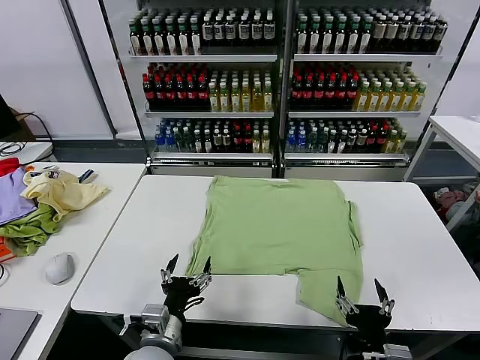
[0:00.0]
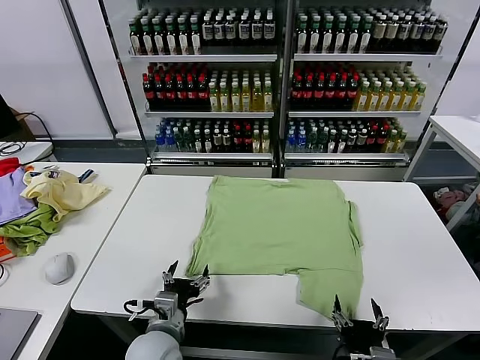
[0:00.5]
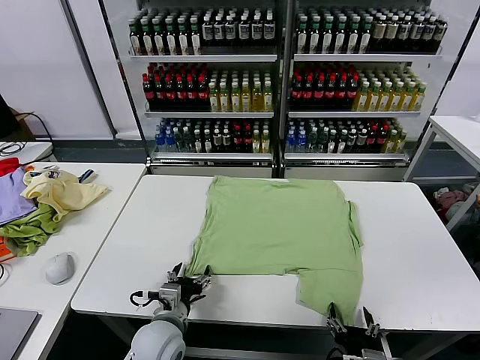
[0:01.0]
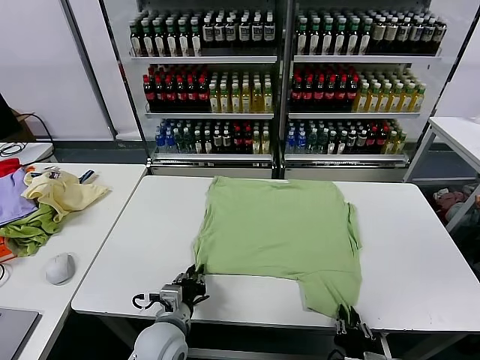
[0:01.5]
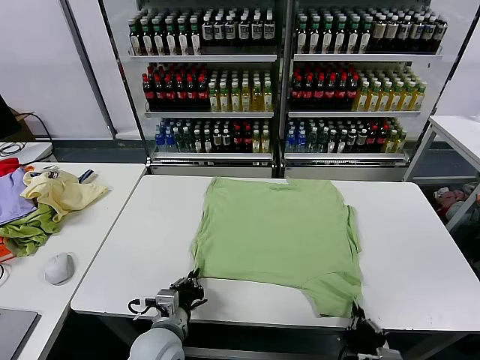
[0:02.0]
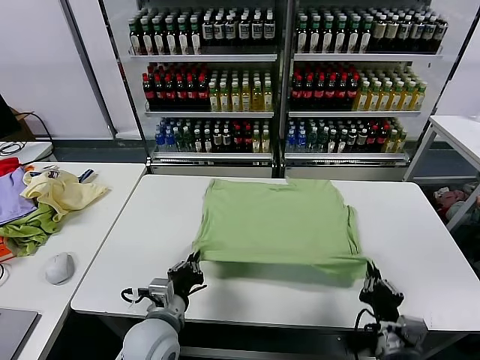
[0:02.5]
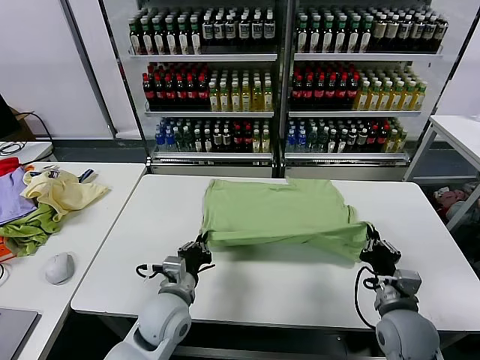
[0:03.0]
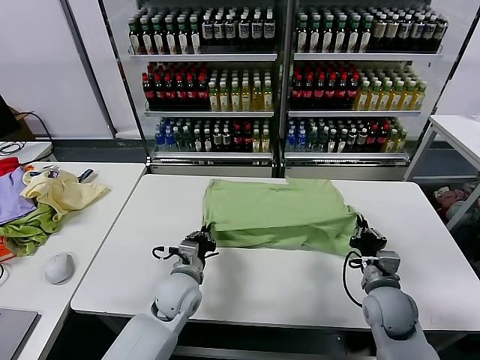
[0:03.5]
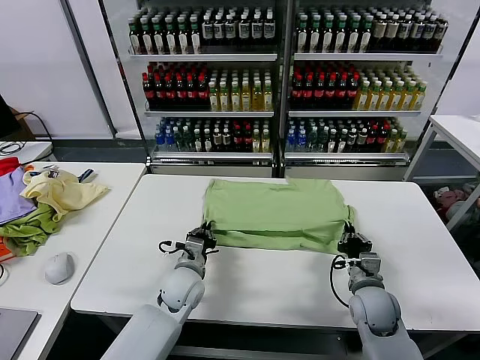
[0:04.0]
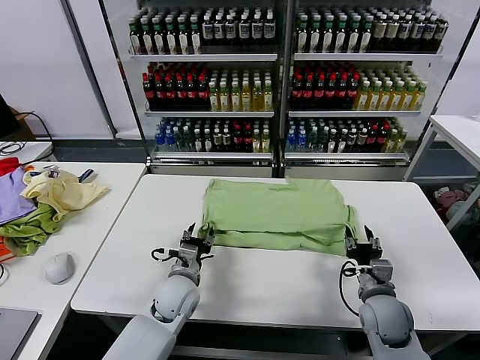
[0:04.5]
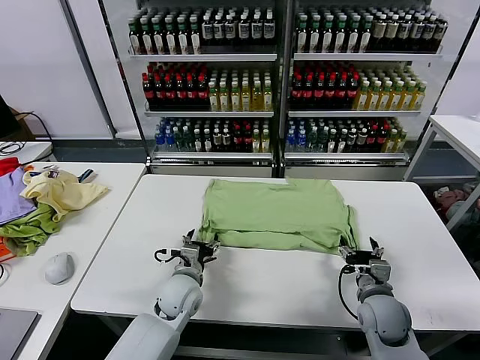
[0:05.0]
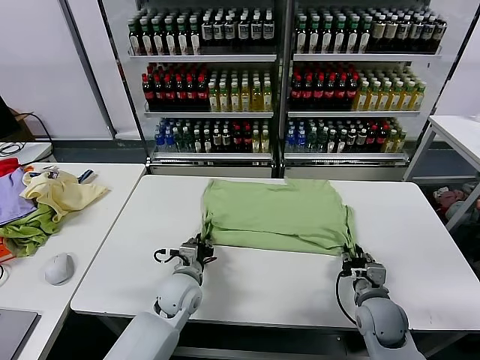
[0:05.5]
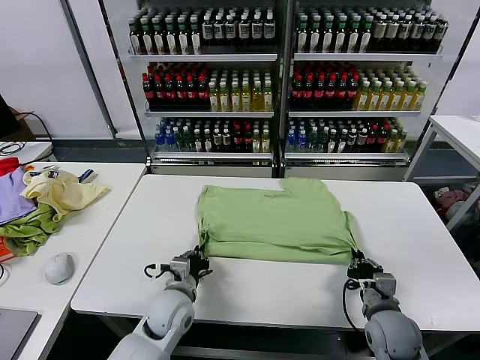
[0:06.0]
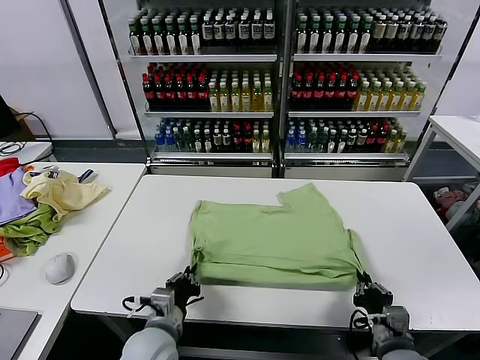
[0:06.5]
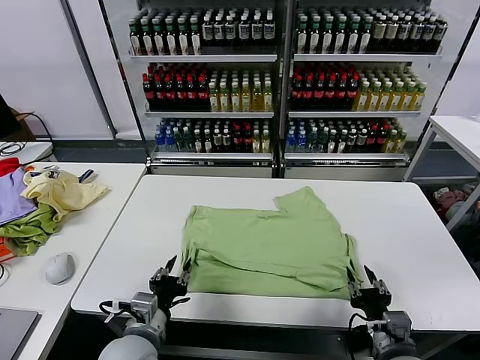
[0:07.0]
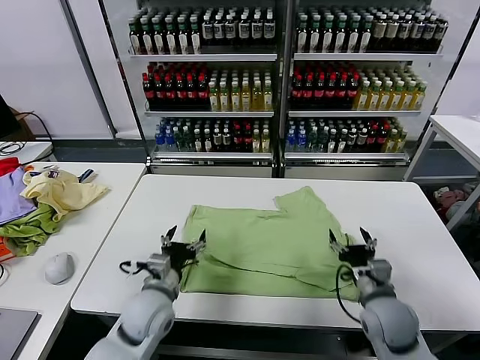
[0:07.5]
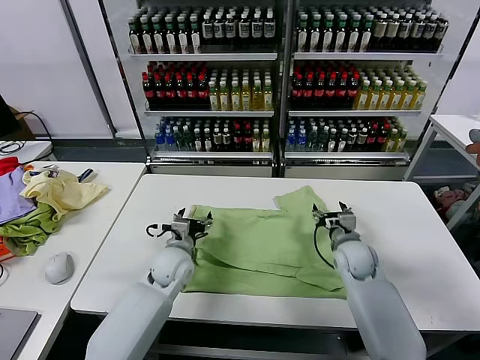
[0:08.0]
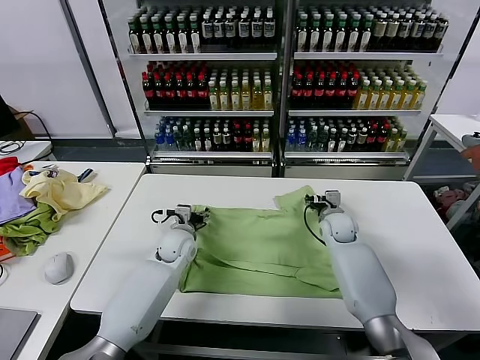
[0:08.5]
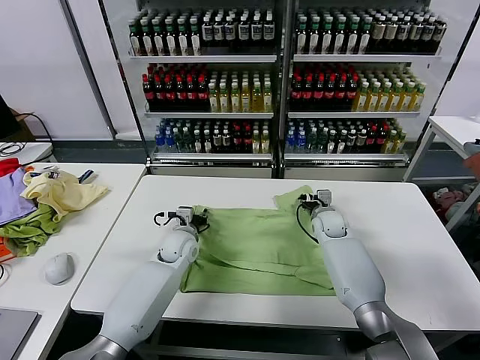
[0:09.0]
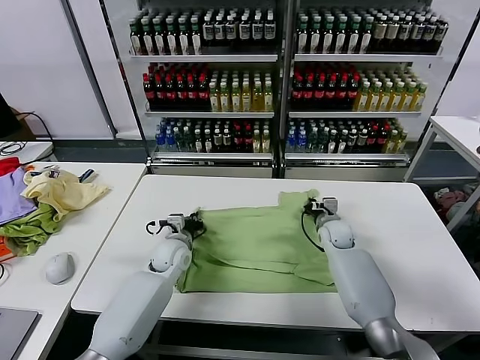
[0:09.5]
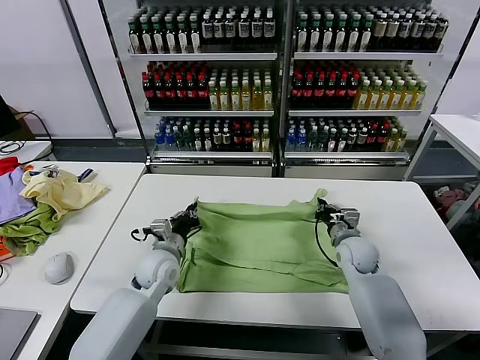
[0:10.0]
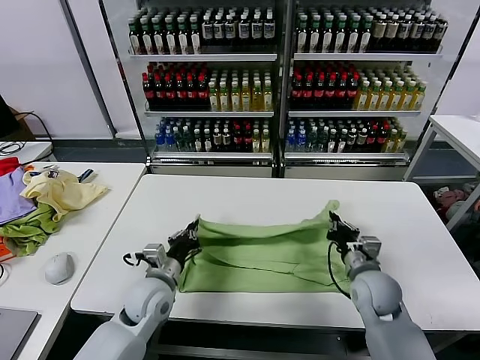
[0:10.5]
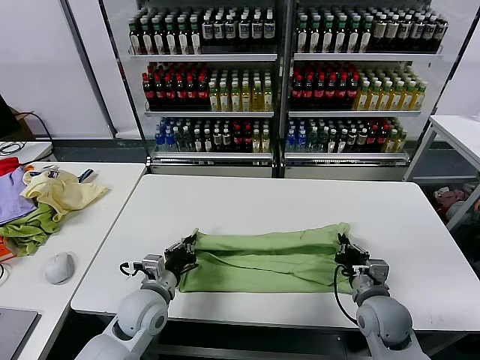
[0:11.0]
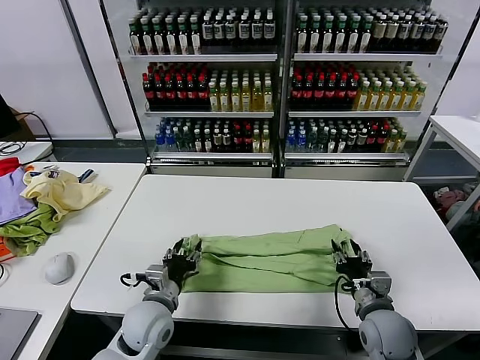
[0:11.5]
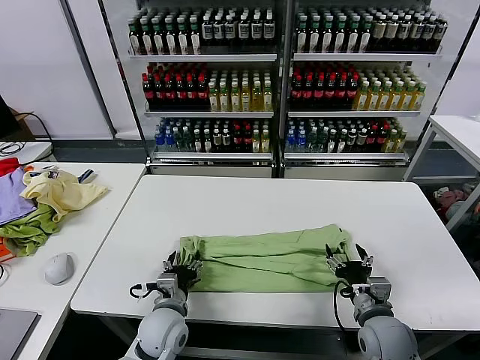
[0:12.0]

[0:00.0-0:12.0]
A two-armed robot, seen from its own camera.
Task of the whole recording: fold and organize the clothes.
Step, 0:00.0 to 0:01.5: use both grippers simultaneously to clamp the lower edge of the clothing fabric.
Step, 0:02.0 to 0:04.0: use both grippers to drag the lower edge of the fabric forward and fold it over the upper edge.
Step, 0:05.0 to 0:06.5: Drag the clothes downward with both gripper.
Step, 0:07.0 to 0:09.0: use both grippers simultaneously to clamp the upper edge of the clothing fabric.
Step, 0:09.5 to 0:11.0: use both grippers to drag the upper edge of the fabric backward and fold it over the lower edge.
0:02.0 to 0:04.0: Both grippers move forward, some 15 cm.
0:04.0 to 0:06.0: The two grippers go some 5 cm backward. The left gripper opens and closes again. The right gripper opens, then closes once more.
0:06.0 to 0:08.0: The right gripper moves forward, about 20 cm, and opens; the left gripper heads forward, covering about 10 cm, and opens up.
0:08.0 to 0:10.0: The right gripper moves roughly 10 cm forward and comes back, and closes. Meanwhile the left gripper travels forward and back again, roughly 5 cm each way, and closes its fingers.
0:10.0 to 0:12.0: The left gripper shifts some 10 cm backward, and opens. The right gripper shifts about 20 cm backward, and opens its fingers.

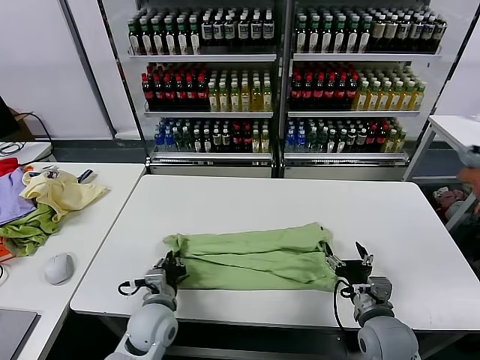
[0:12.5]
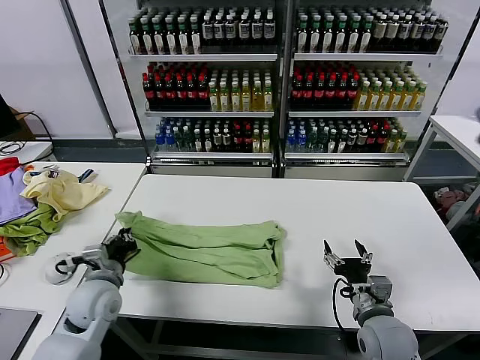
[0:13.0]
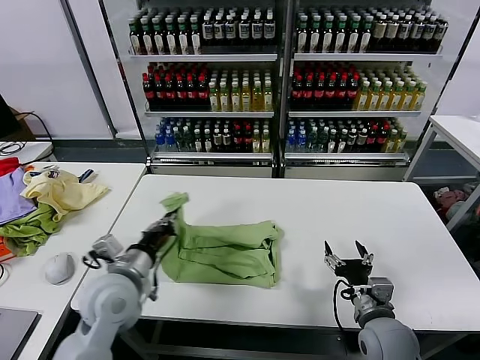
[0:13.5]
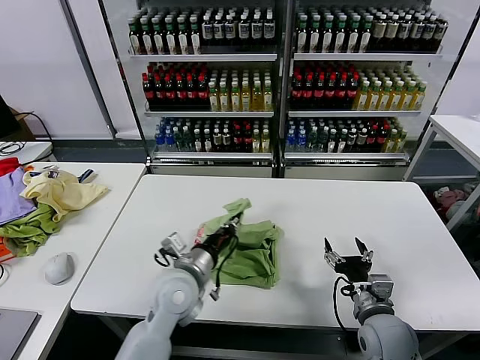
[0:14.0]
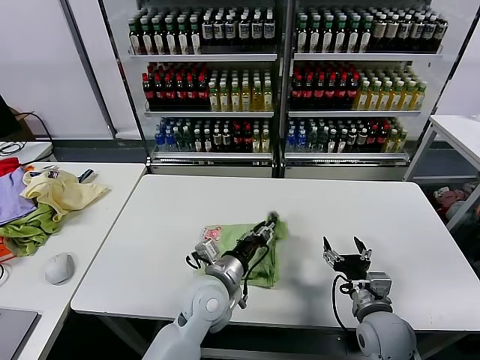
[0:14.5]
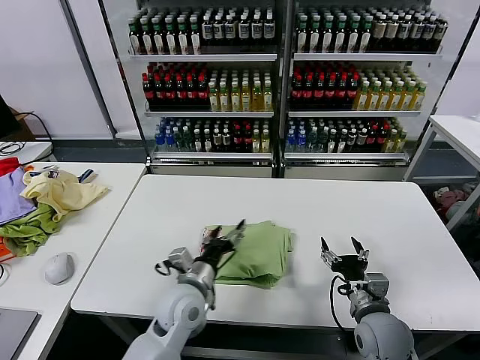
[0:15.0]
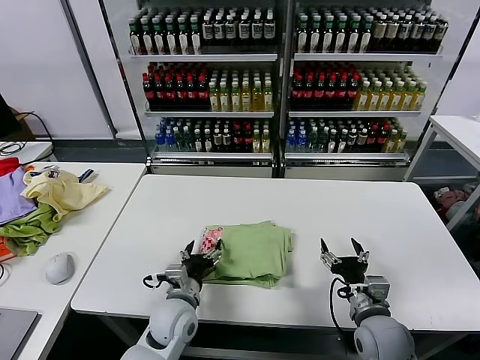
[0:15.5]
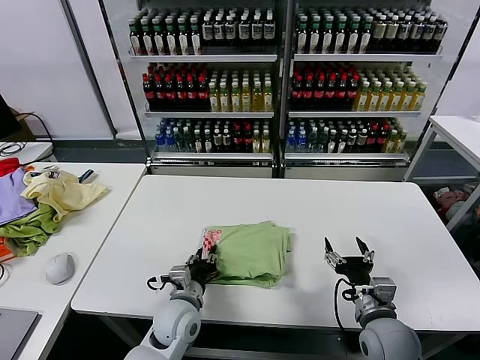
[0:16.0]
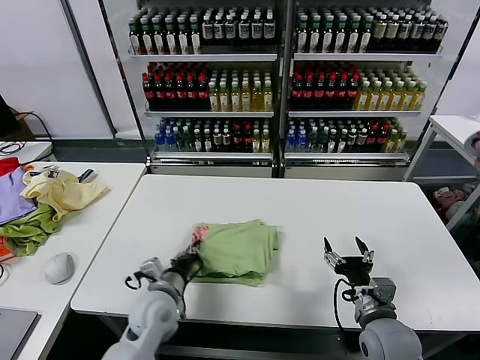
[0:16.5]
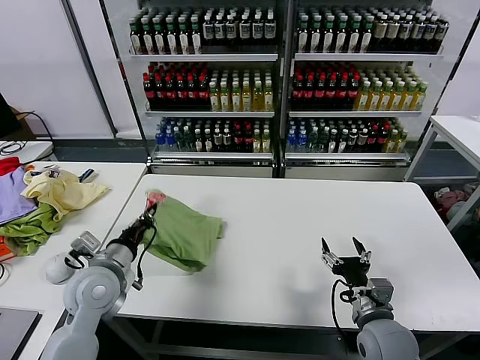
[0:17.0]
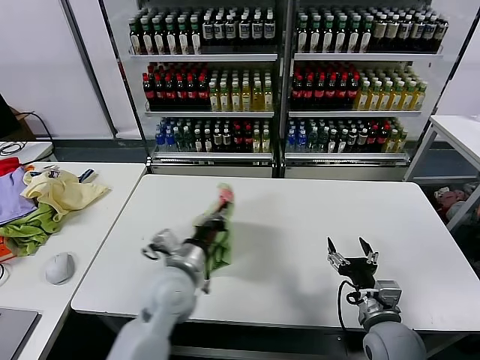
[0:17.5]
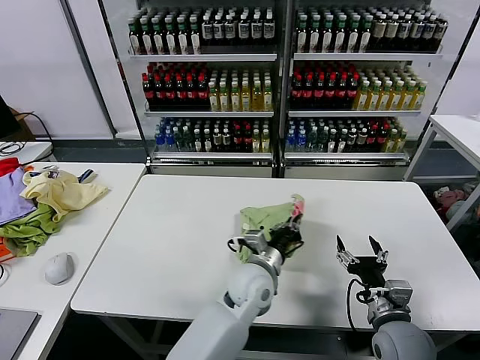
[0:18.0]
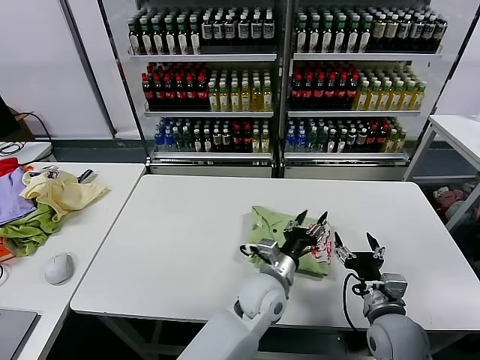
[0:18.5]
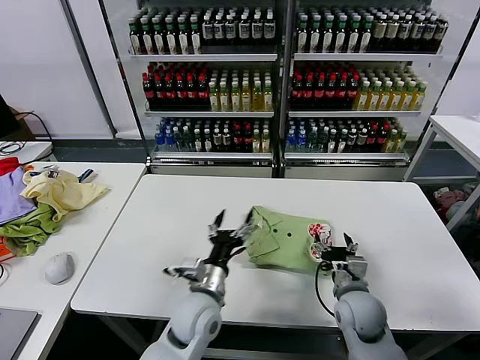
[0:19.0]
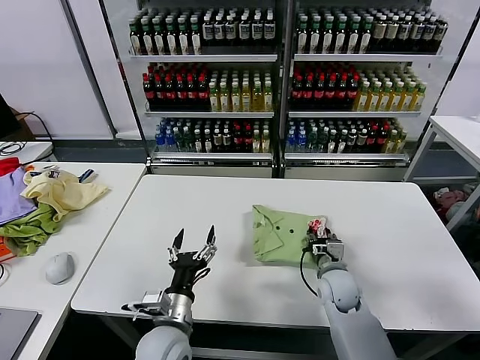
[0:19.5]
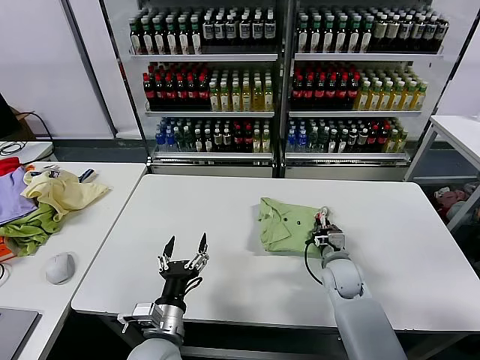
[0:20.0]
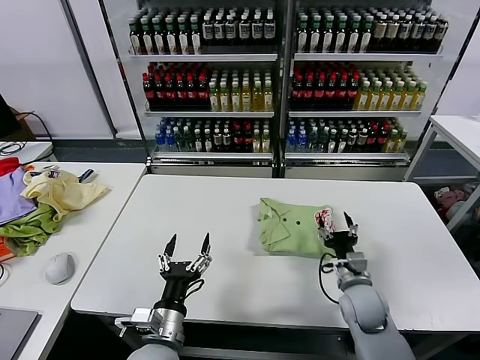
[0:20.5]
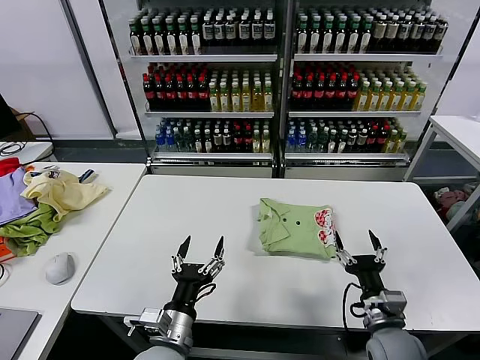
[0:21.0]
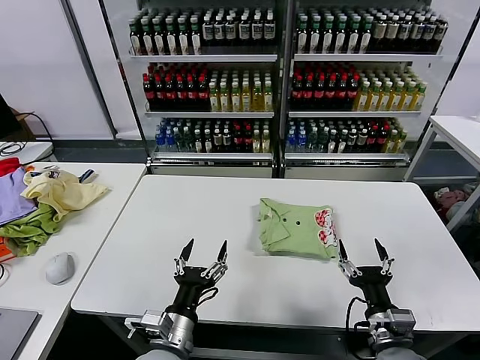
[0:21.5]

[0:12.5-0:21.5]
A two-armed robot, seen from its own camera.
Task of the whole recording: fold and organize the clothes.
Step, 0:13.0 to 0:14.5: use the left gripper to drag the left edge of the fabric to the left and folds it over the right edge.
Step, 0:15.0 to 0:18.0: Flip the folded clothes over with left gripper.
Step, 0:18.5 to 0:20.0: Drag the clothes to the center of the table.
0:12.5 to 0:14.5: The left gripper heads to the right and upward, covering about 15 cm.
0:14.5 to 0:17.0: The left gripper moves to the left, some 20 cm, and closes up.
0:17.0 to 0:19.5: The right gripper goes about 15 cm forward and downward, and closes its fingers, while the left gripper moves to the right, backward and downward, approximately 20 cm, and opens up.
0:19.5 to 0:21.5: The right gripper travels backward by some 20 cm, and opens its fingers; the left gripper travels backward by about 5 cm.

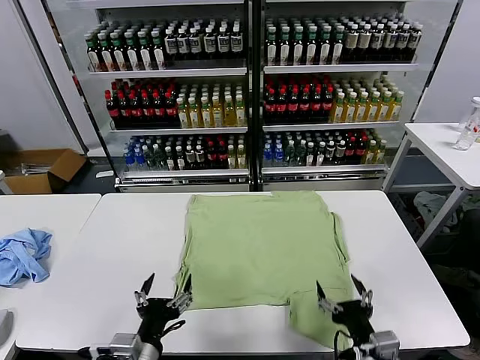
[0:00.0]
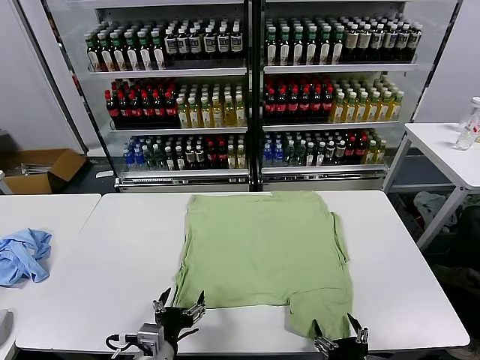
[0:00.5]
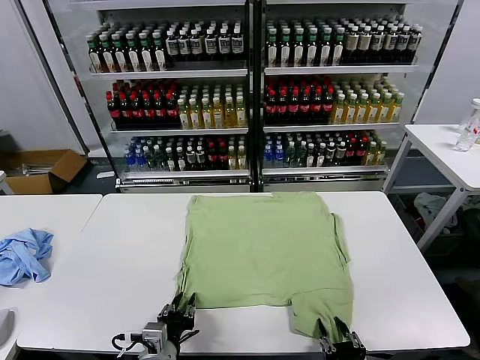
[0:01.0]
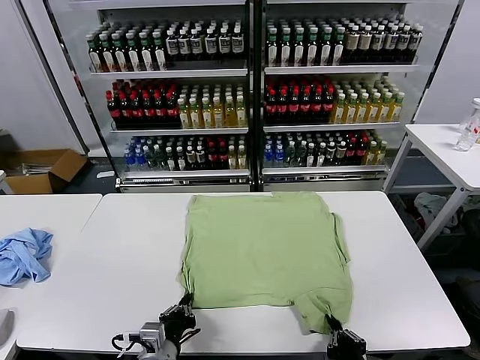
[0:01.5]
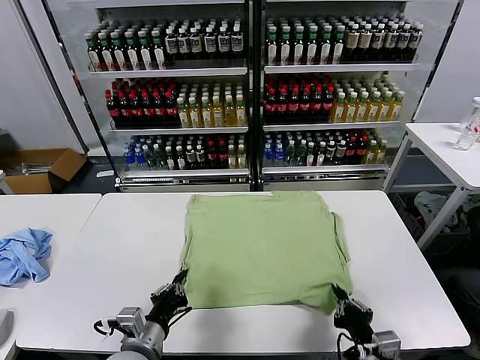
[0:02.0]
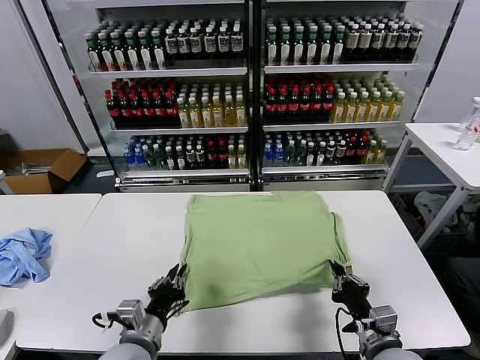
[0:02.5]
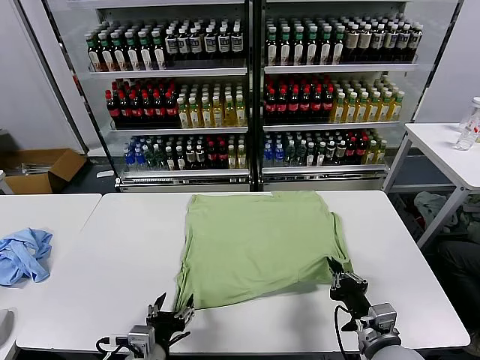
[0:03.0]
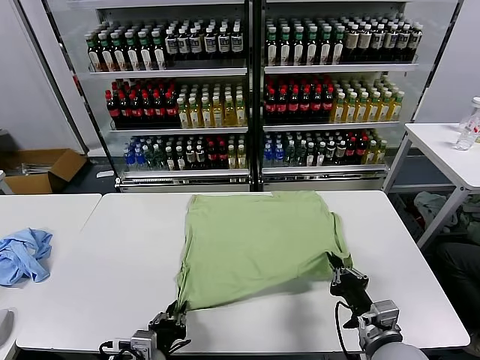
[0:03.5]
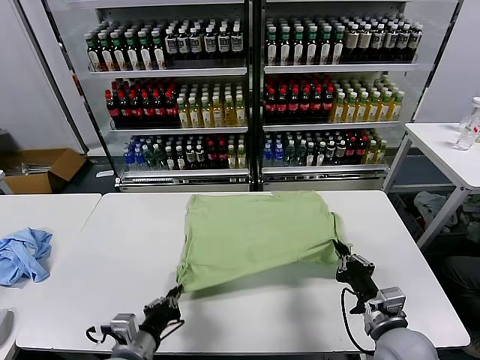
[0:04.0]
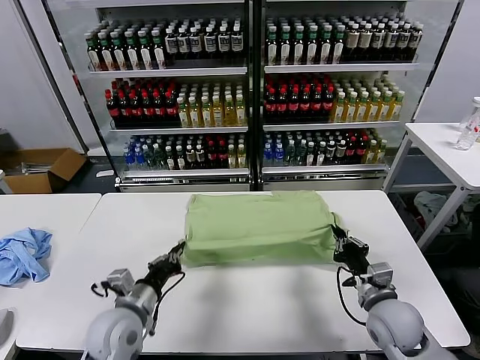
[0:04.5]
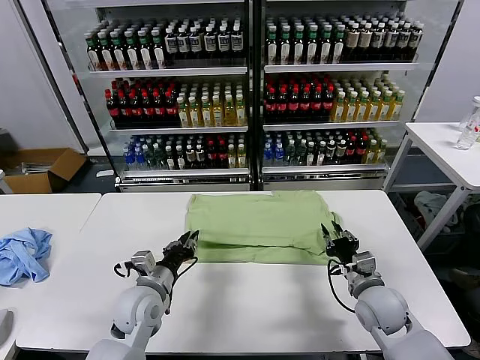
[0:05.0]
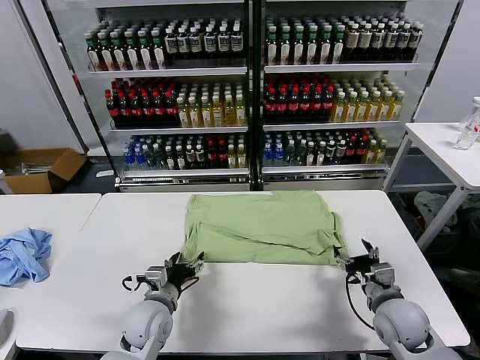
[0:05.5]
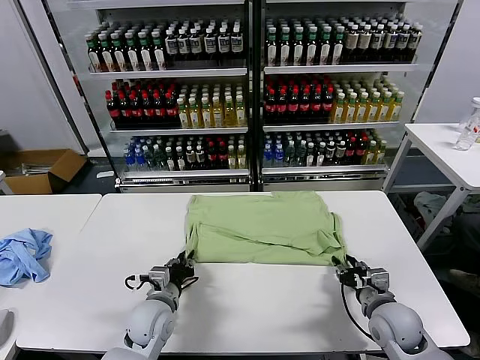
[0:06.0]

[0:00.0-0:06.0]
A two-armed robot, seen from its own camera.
Task of the whole recording: fold and organize the clothes.
Step, 0:00.0 to 0:01.0: use both grippers simultaneously to clamp the lower edge of the clothing fabric.
Step, 0:01.5 to 0:05.0: use both grippers to drag the lower edge of the fabric forward and fold it over the upper edge.
0:02.0 to 0:04.0: The left gripper opens, then closes again. The right gripper goes approximately 5 cm forward.
0:04.0 to 0:06.0: The right gripper shifts approximately 10 cm forward and downward, and opens. Meanwhile the left gripper travels forward and downward by about 15 cm, and opens, then closes again.
